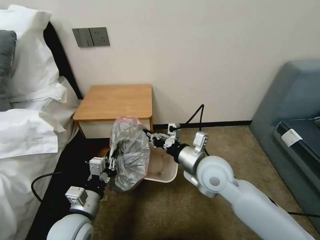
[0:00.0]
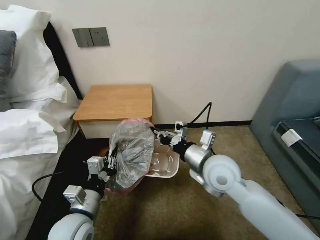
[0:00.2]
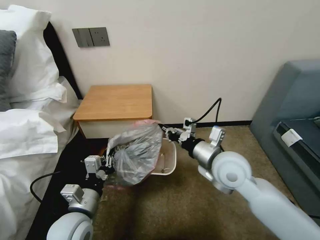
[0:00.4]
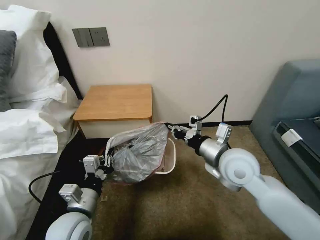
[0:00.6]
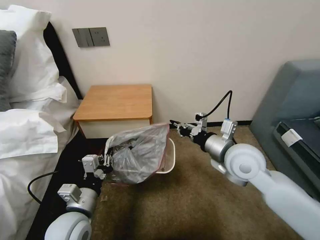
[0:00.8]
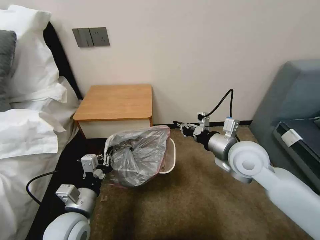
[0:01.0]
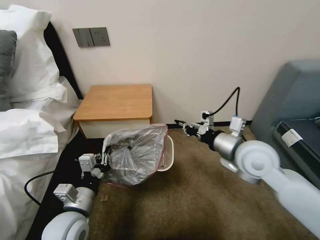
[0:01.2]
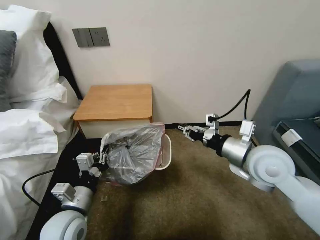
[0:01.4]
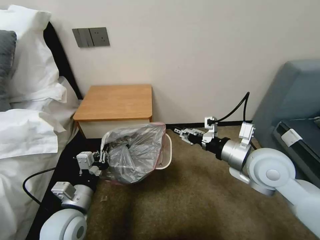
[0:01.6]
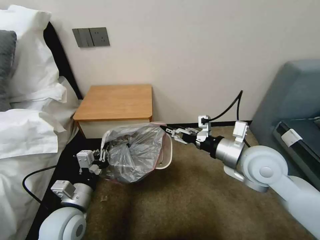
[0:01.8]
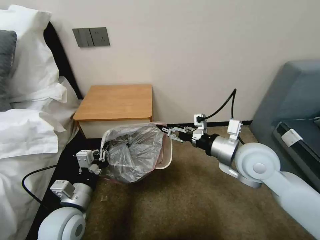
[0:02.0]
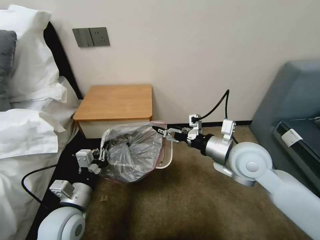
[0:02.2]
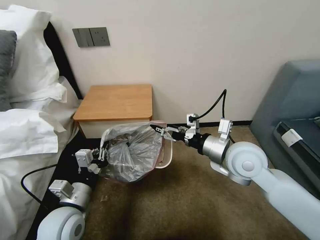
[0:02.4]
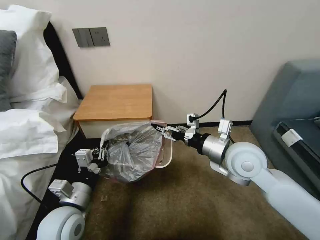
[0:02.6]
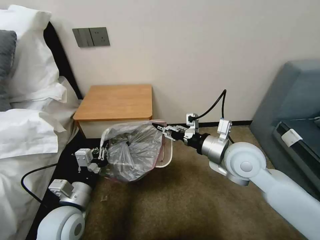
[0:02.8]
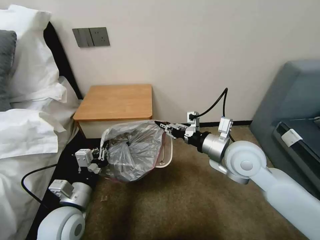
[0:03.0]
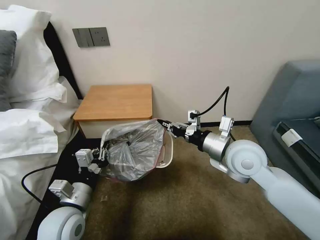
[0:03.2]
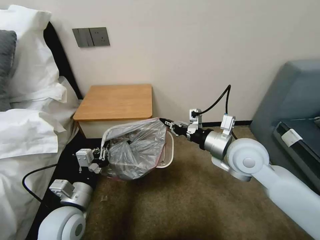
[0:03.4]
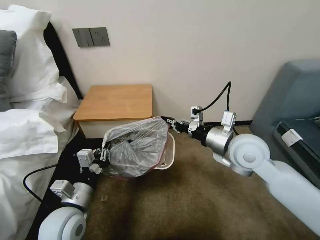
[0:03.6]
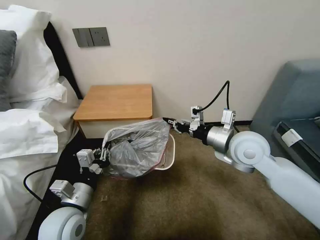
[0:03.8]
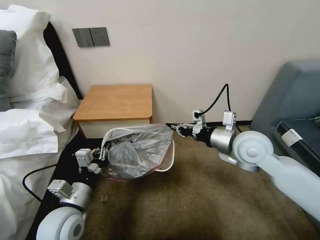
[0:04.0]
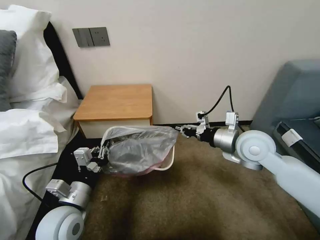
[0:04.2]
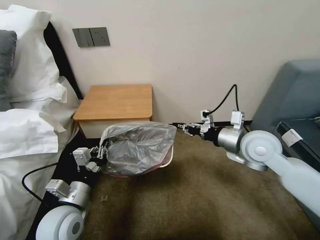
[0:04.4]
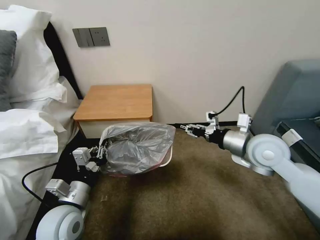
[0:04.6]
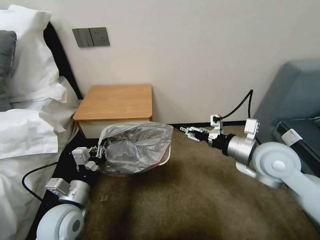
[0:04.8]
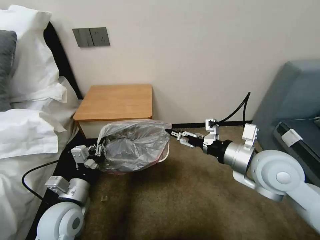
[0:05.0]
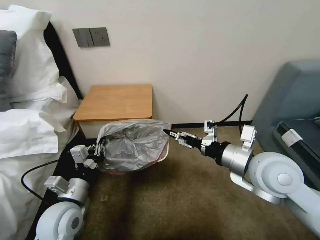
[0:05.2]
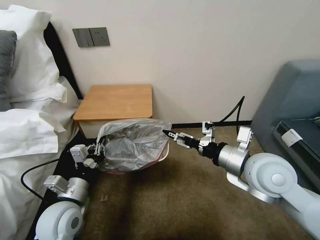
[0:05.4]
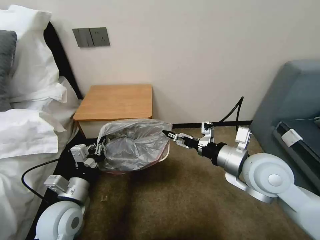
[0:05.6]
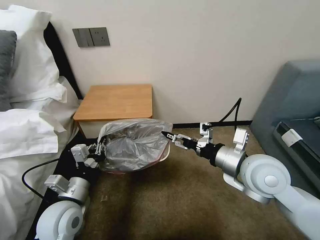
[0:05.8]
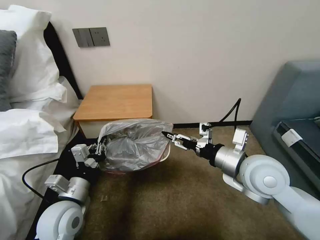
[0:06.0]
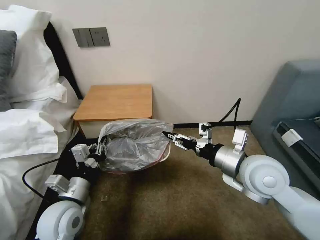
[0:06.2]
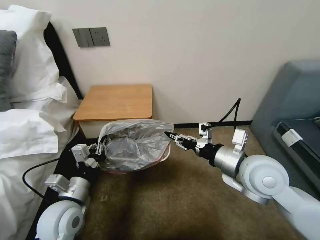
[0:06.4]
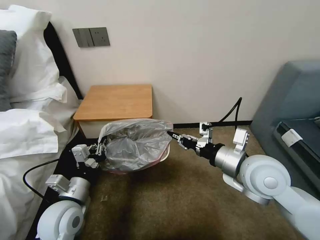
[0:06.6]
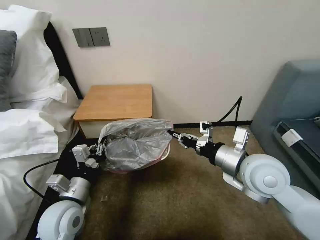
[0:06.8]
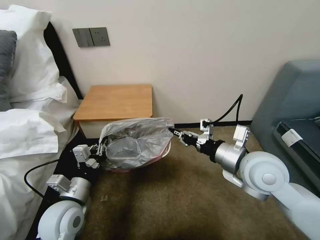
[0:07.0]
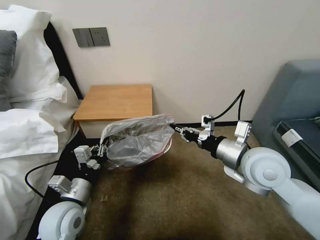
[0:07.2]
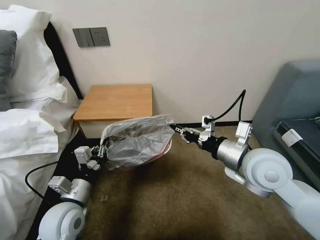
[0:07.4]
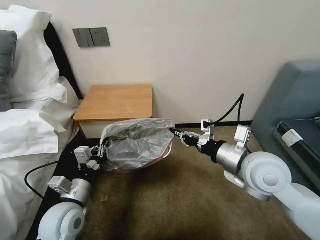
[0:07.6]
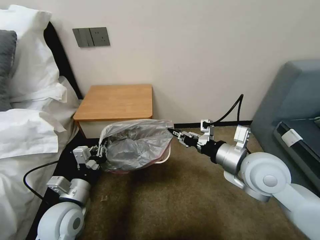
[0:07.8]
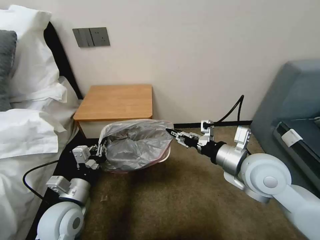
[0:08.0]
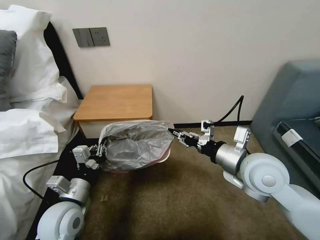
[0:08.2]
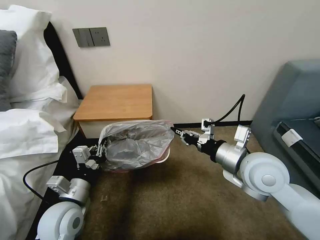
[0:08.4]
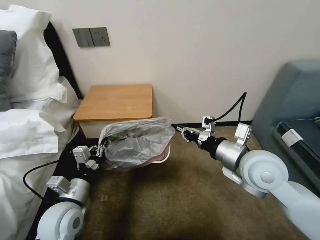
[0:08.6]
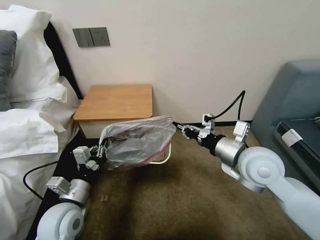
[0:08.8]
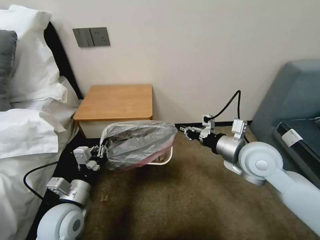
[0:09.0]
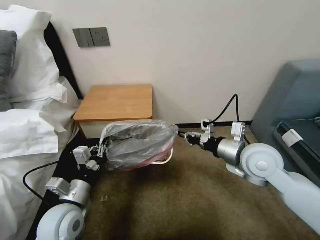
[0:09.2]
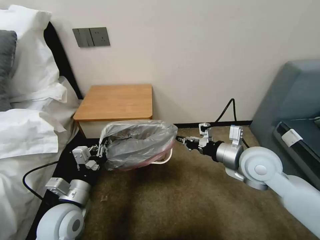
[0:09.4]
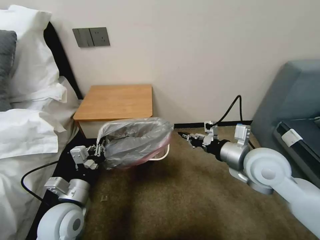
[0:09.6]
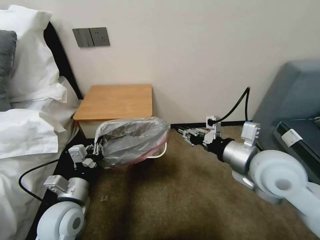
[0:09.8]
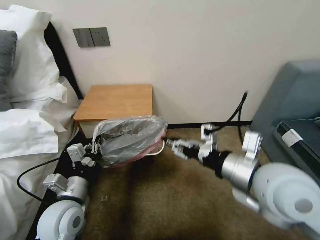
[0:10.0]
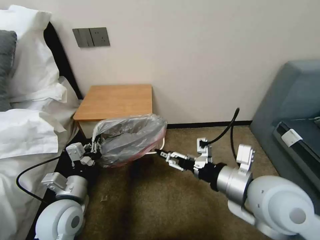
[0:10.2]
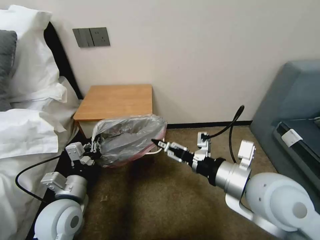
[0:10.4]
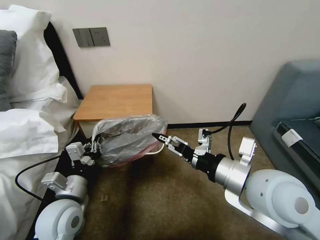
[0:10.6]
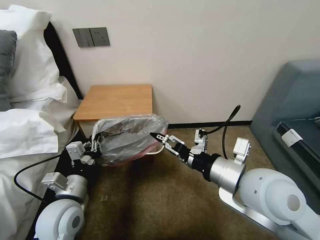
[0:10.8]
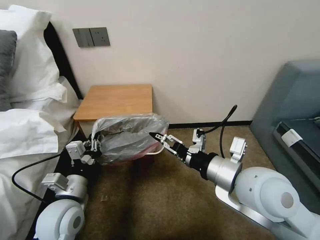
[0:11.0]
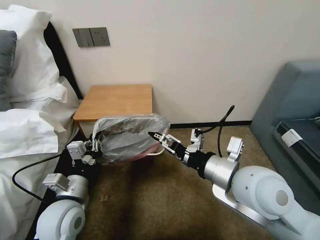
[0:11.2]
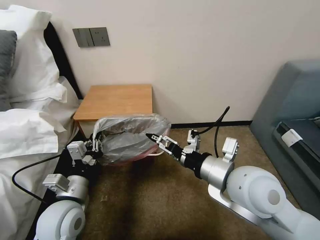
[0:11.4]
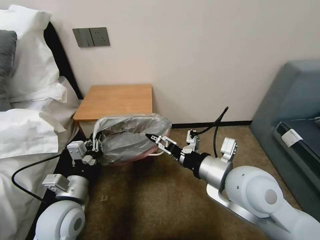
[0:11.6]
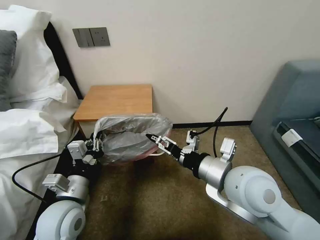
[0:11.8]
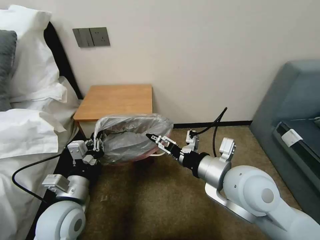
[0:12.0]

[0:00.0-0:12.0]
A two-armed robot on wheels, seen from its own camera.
Task of the whole recording: Pick up the garbage bag from the table and place it over the trash can.
0:00.0 to 0:01.6: The right gripper moves to the right and upward, approximately 15 cm, and opens its fingers.
0:01.6 to 0:03.0: The right gripper ends up approximately 5 cm from where it was, and opens, then closes once more.
0:03.0 to 0:04.4: The right gripper travels to the right by roughly 5 cm.
0:04.4 to 0:06.0: The right gripper travels backward by roughly 10 cm, and opens its fingers.
0:06.0 to 0:07.6: The right gripper closes.
0:07.6 to 0:09.0: The right gripper opens and closes again.
0:09.0 to 0:10.4: The right gripper is displaced backward by approximately 10 cm, and opens its fingers.
0:10.4 to 0:12.0: There are only small adjustments of the grippers.

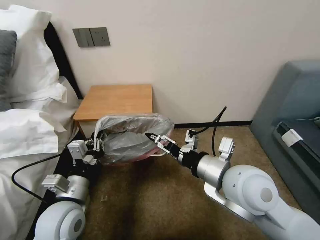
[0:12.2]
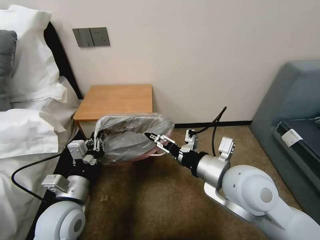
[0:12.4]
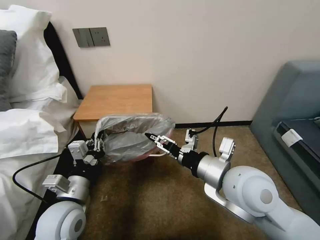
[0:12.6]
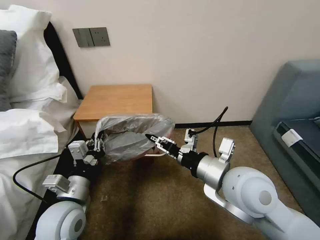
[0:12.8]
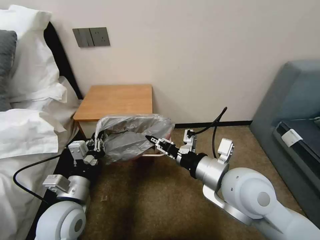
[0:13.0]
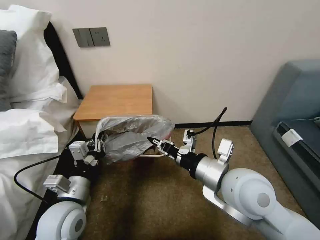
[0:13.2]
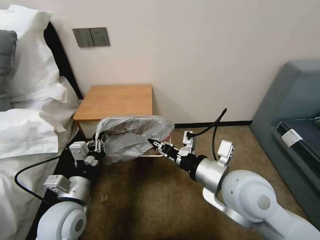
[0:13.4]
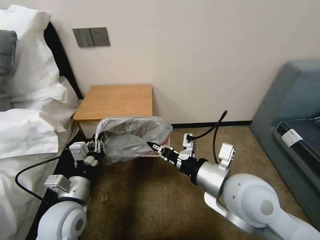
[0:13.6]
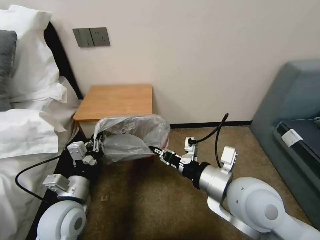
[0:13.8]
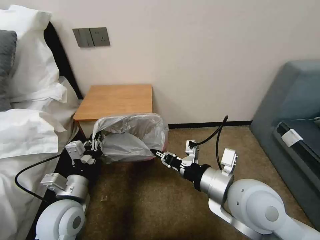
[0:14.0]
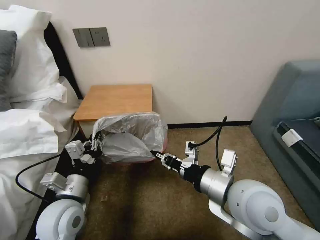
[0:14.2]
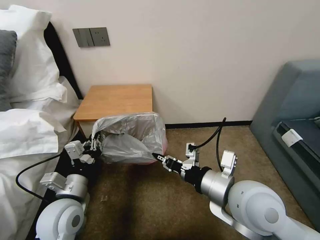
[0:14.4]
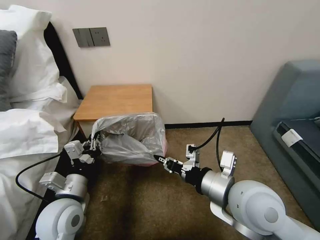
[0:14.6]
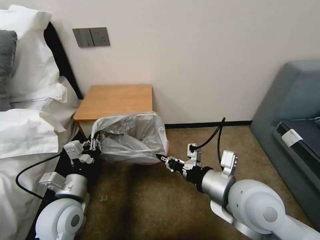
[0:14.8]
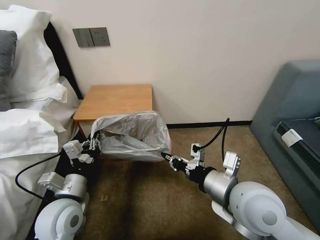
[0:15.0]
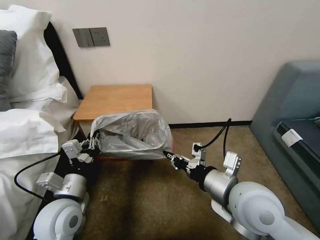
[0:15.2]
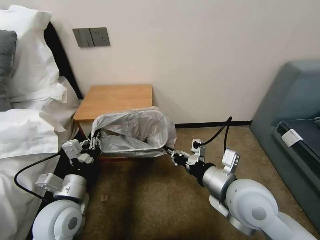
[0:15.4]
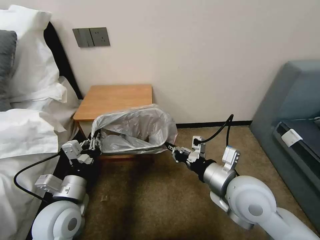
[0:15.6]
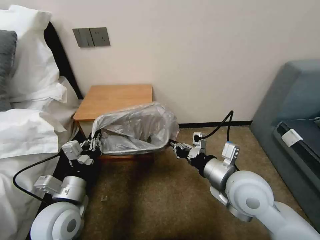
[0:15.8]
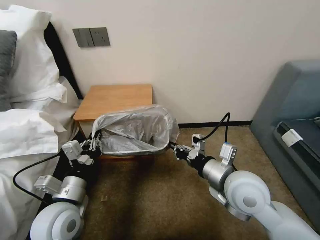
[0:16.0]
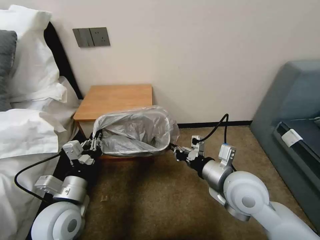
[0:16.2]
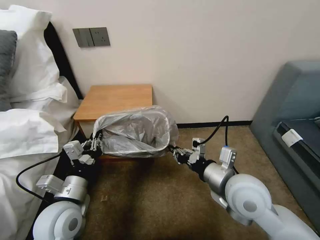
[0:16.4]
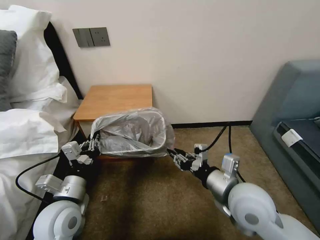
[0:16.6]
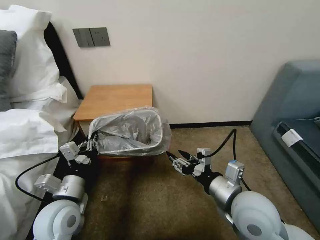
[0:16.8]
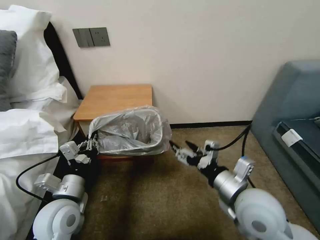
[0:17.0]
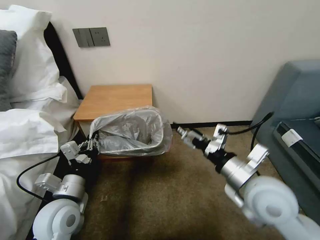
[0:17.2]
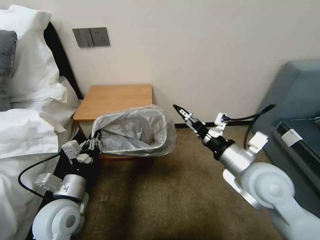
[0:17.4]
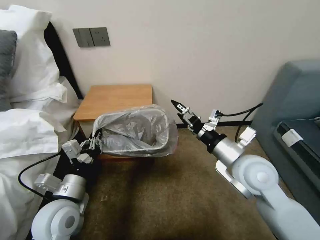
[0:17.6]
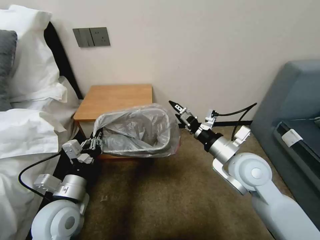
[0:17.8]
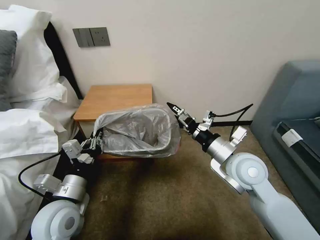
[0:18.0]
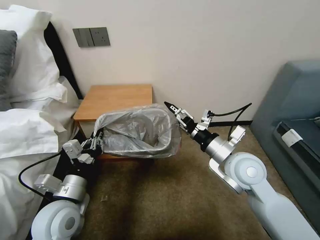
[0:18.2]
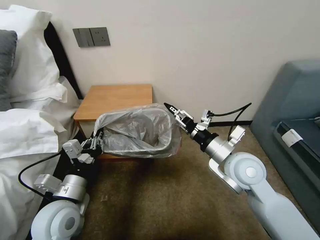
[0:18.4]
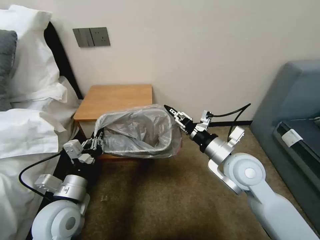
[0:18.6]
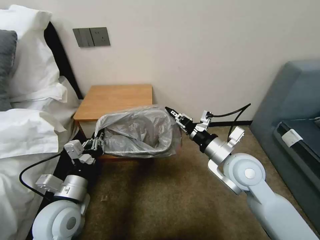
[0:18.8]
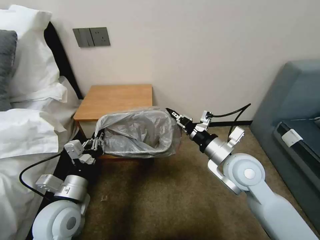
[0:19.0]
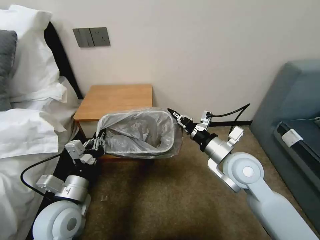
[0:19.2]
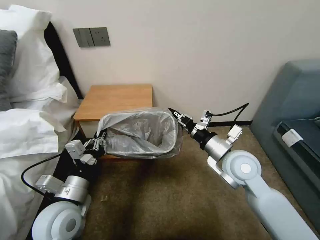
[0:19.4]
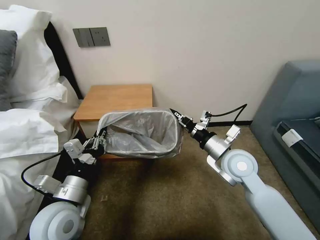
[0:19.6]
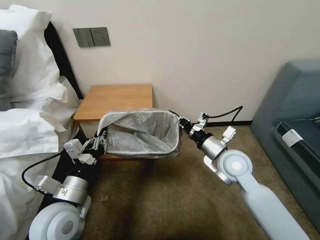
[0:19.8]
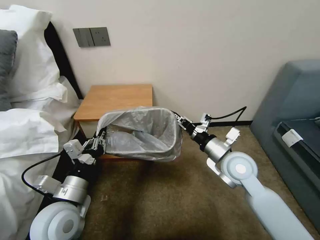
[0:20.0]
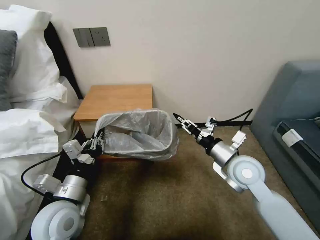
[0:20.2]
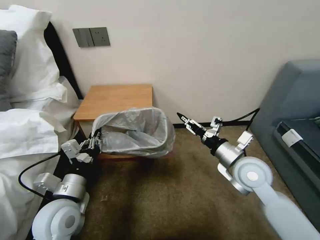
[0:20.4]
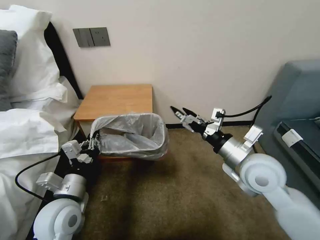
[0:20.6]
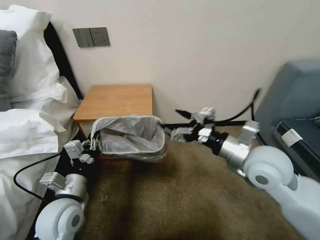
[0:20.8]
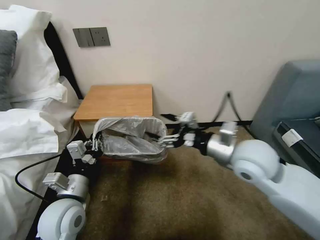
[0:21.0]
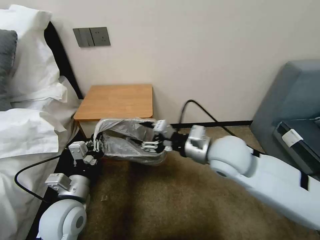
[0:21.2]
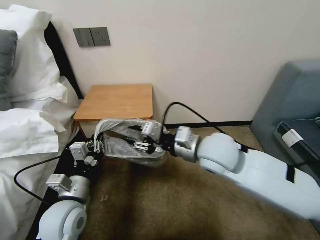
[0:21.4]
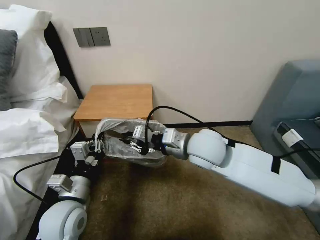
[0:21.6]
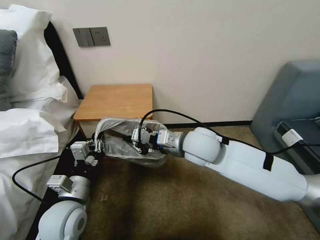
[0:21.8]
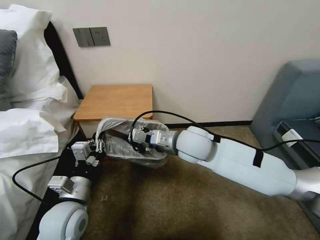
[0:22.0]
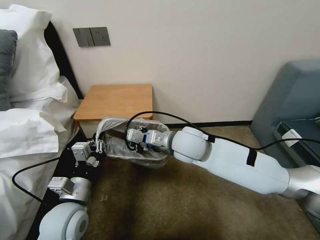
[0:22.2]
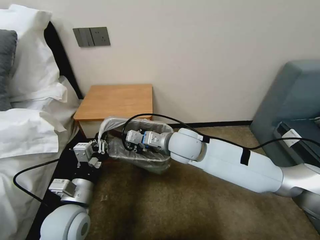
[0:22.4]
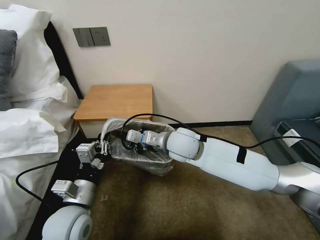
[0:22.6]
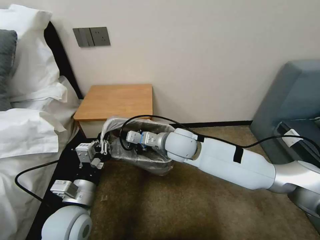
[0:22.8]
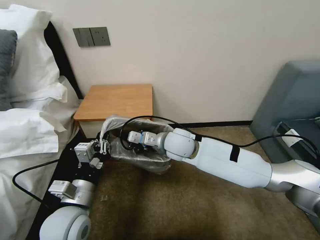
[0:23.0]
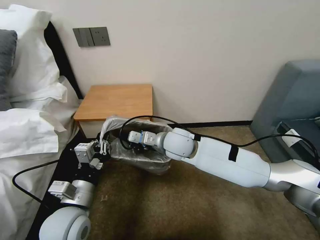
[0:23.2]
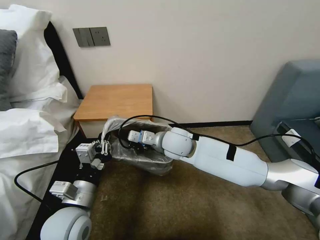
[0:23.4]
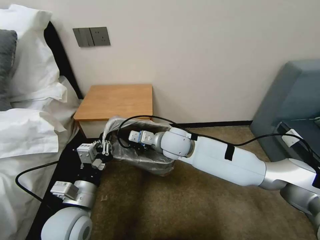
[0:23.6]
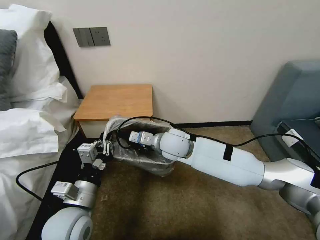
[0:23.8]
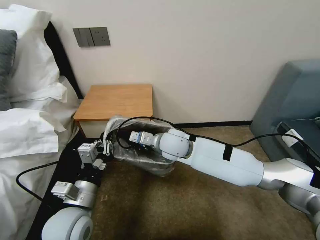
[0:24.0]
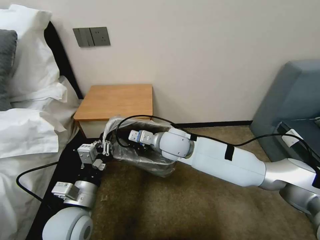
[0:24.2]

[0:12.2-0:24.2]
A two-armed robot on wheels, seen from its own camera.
Task of the whole recording: Pick up the garbage bag from the table and place it over the trash can.
0:12.2 to 0:13.8: The right gripper closes up.
0:13.8 to 0:15.2: The grippers move only a little.
0:15.2 to 0:16.6: The right gripper opens.
0:16.6 to 0:18.2: The right gripper travels forward by approximately 10 cm, and opens up.
0:18.2 to 0:19.8: The right gripper moves roughly 5 cm, and closes up.
0:19.8 to 0:21.2: The right gripper moves upward and to the left, about 10 cm, and opens up.
0:21.2 to 0:22.6: The right gripper is displaced to the left and forward by about 10 cm, and closes its fingers.
0:22.6 to 0:24.2: The grippers stay close to where they were, moving slightly.
